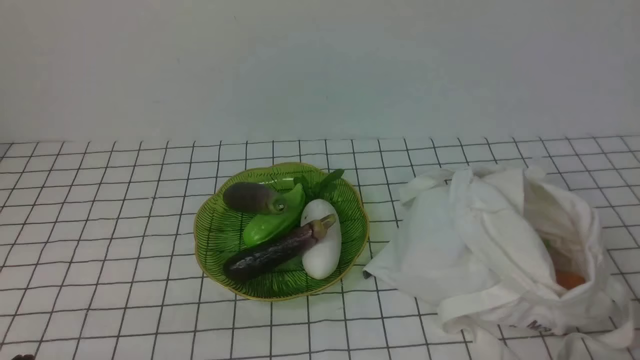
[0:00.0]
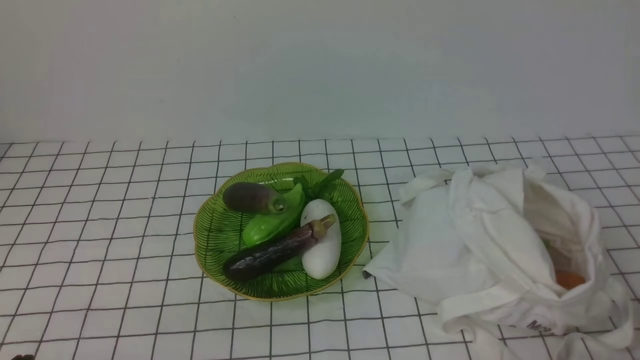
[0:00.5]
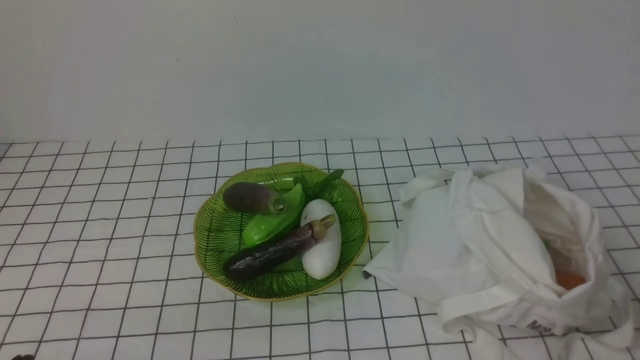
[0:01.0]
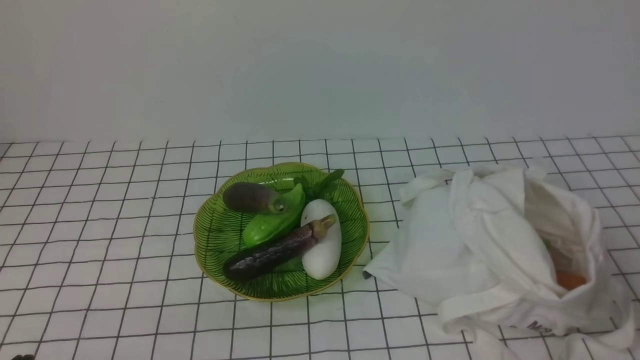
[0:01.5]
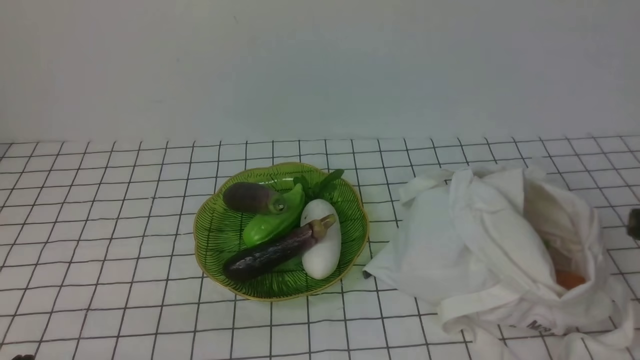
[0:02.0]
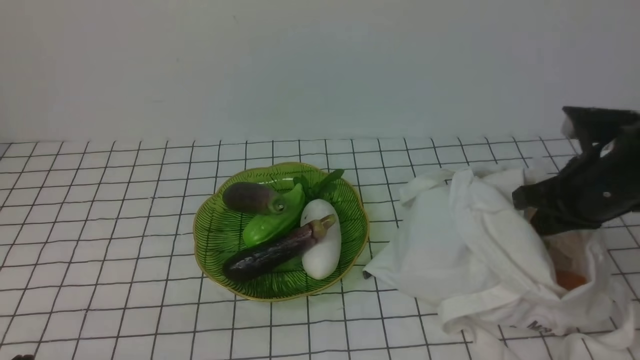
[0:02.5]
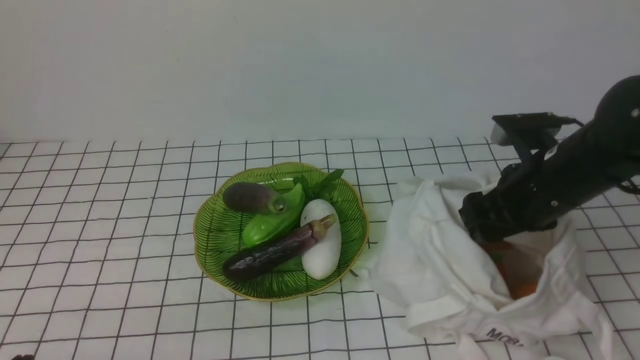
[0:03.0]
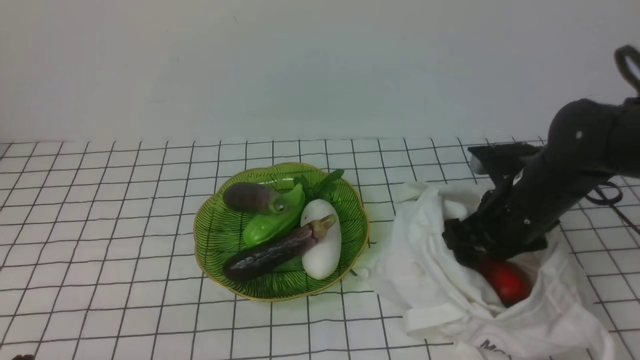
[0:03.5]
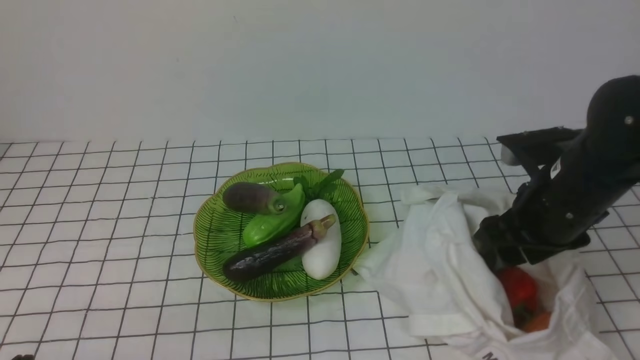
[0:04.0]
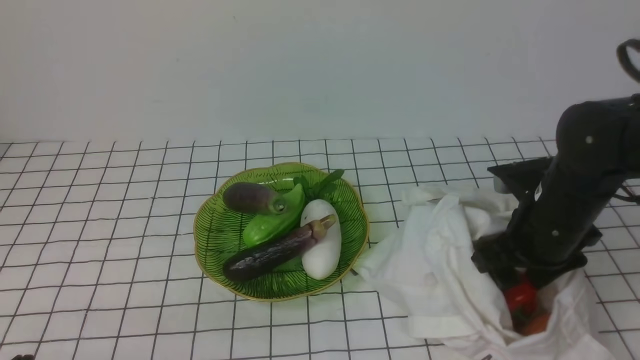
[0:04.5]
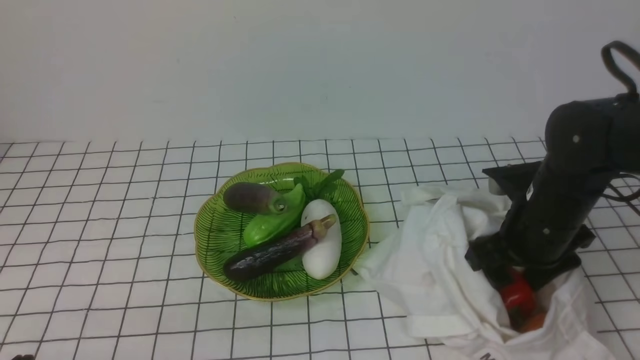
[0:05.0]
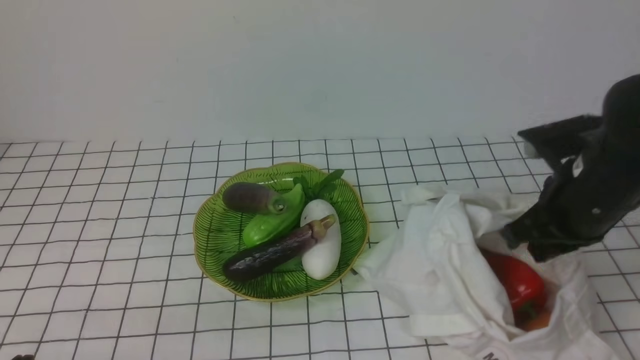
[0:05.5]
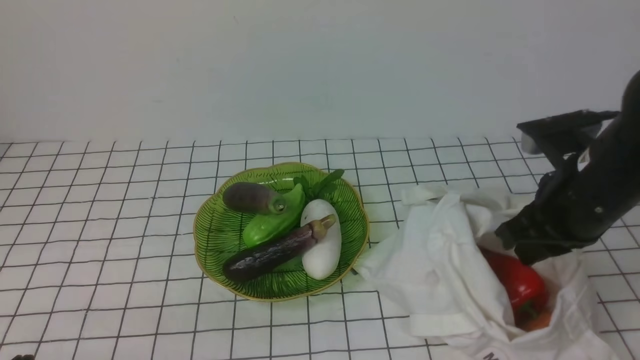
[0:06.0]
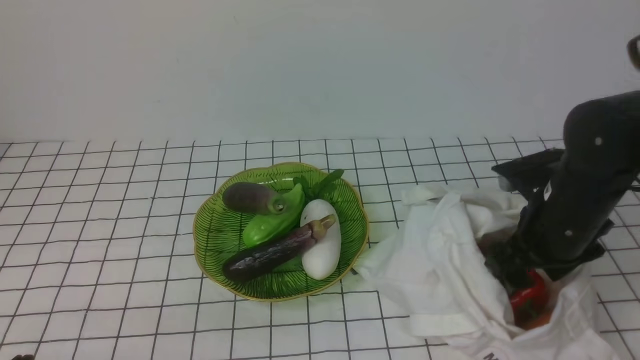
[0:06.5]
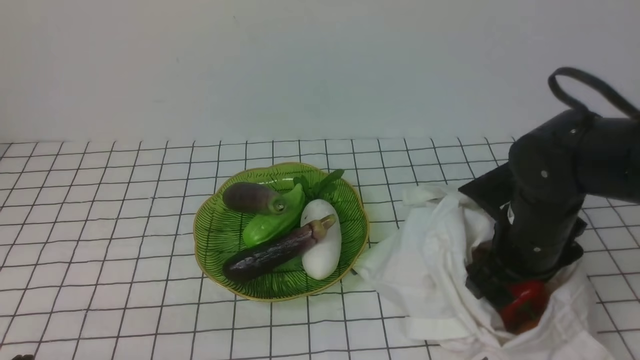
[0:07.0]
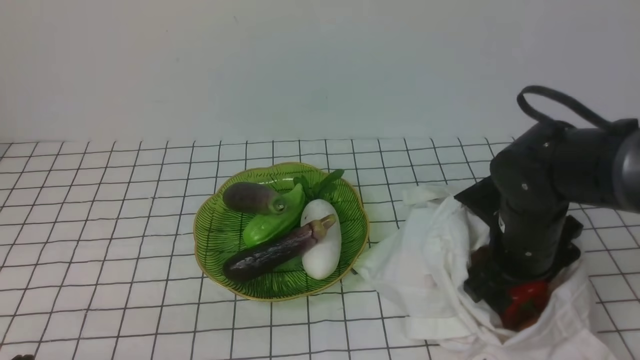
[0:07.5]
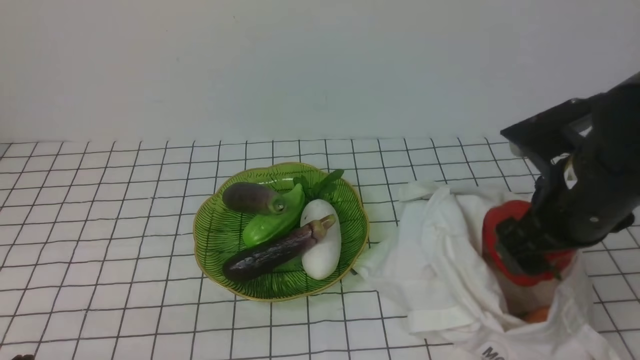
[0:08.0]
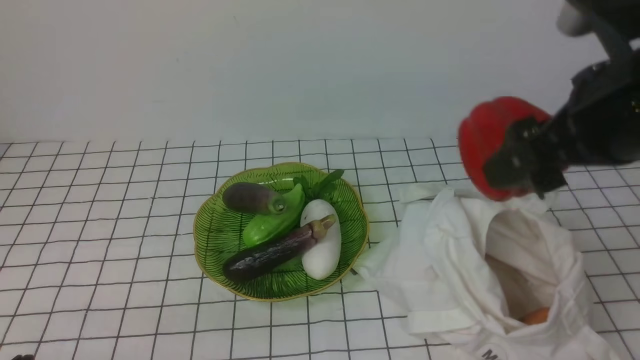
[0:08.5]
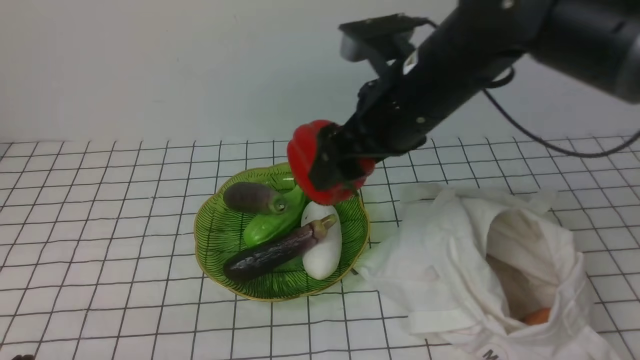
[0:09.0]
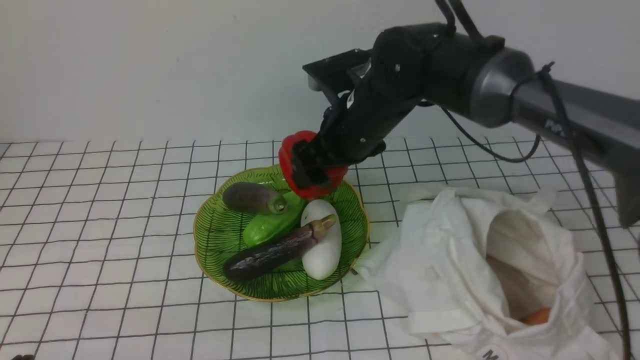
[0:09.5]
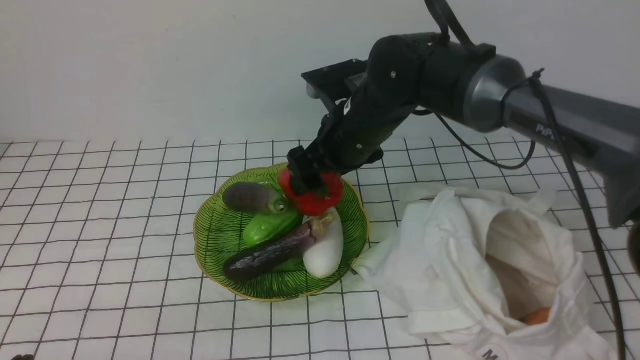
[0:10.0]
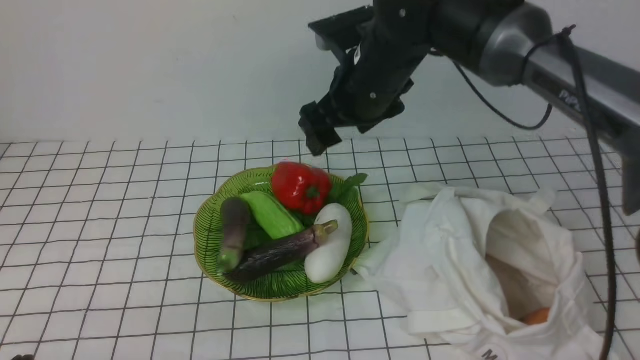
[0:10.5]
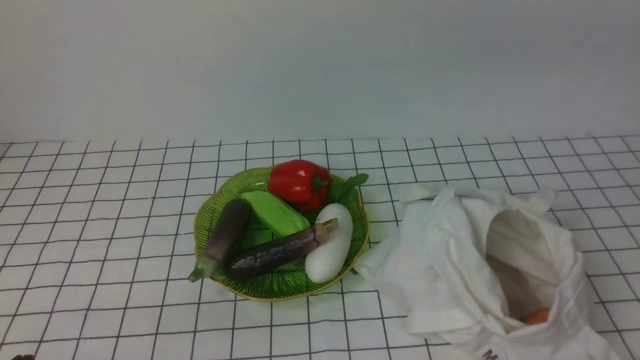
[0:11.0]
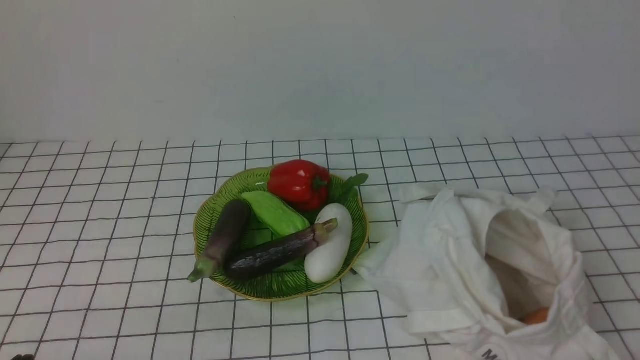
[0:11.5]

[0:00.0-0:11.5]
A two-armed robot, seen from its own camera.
Task of the whole recording: take vegetables from bag on white checkered tablecloth place on plate.
Step, 0:00.0 to 0:07.0: Grasp the bell pepper with right gripper.
Step, 0:07.5 to 0:10.0: Place the bell pepper on the plate with right gripper.
0:02.0 to 0:04.0: The right gripper moves forward, downward and to the left, roughly 15 cm, and opens.
0:04.0 to 0:06.0: The right gripper closes up.
0:06.0 to 0:07.5: The right gripper is displaced downward by approximately 5 cm, and opens up.
0:07.5 to 0:09.5: The right gripper travels to the left and forward by roughly 20 cm, and goes upward and returns, approximately 20 cm each way.
0:09.5 to 0:11.5: The right gripper travels backward, to the right and upward by about 40 cm, and closes.

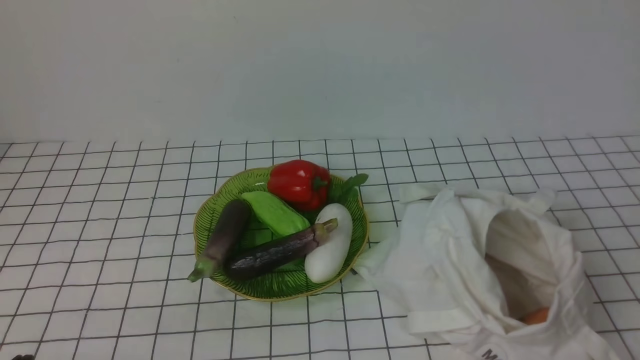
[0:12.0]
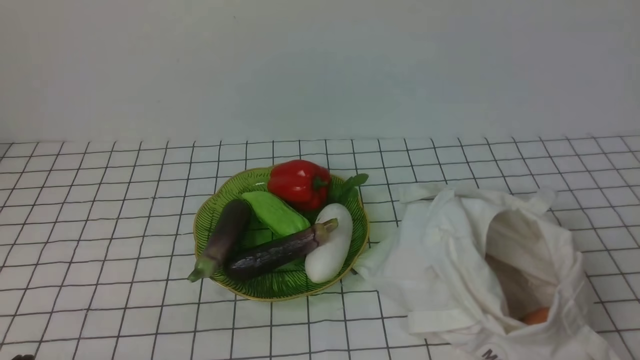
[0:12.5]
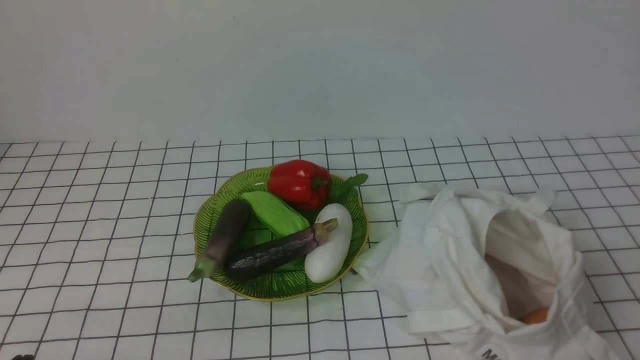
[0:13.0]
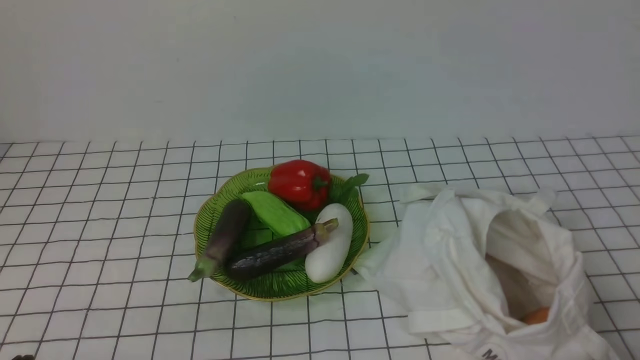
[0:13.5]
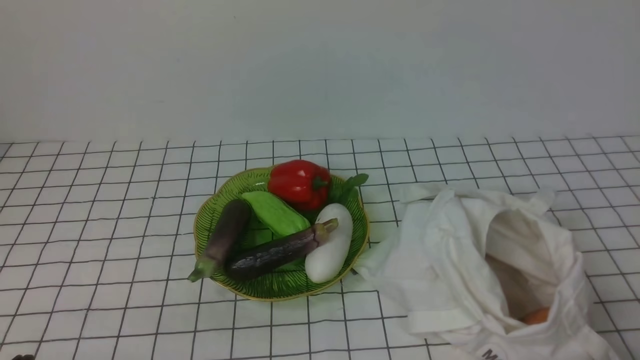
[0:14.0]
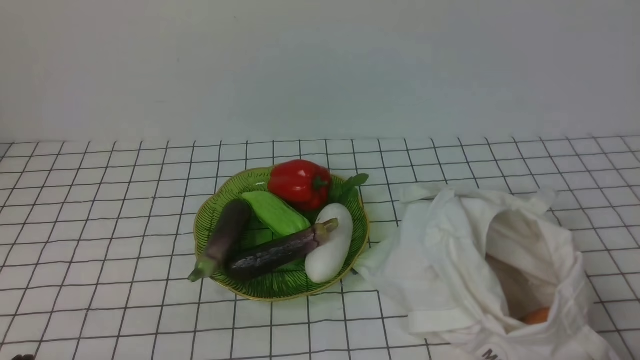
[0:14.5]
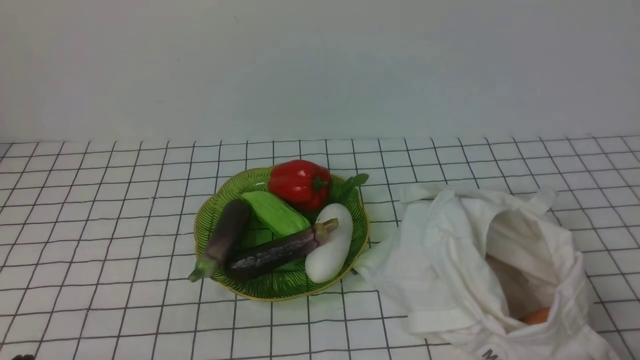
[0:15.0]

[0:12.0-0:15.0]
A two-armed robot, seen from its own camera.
Task of the whole recording: take vegetables from bag on white checkered tablecloth place on plate.
0:13.5 to 0:15.0: Both grippers stay put.
